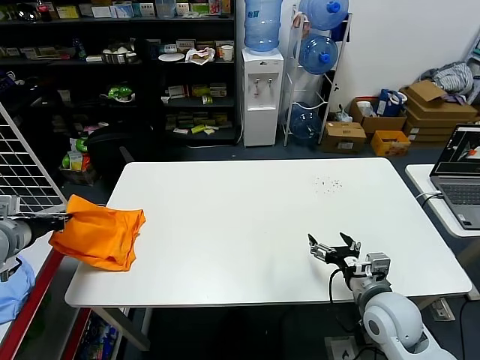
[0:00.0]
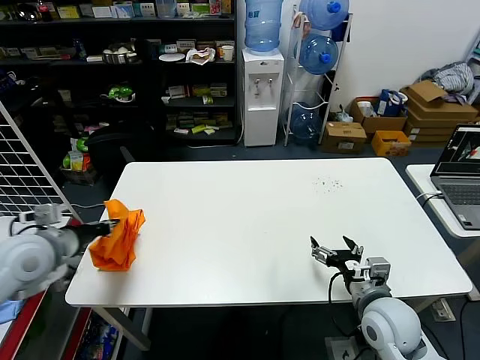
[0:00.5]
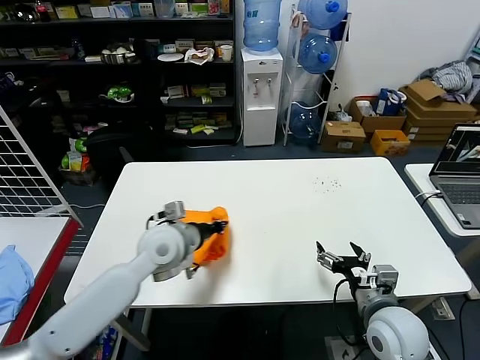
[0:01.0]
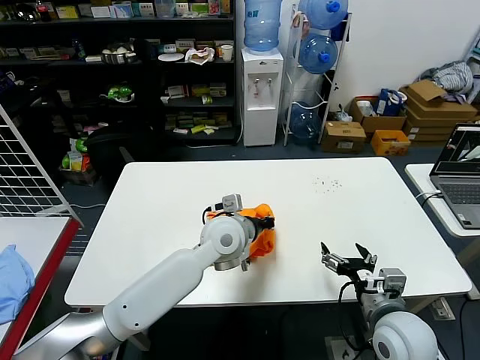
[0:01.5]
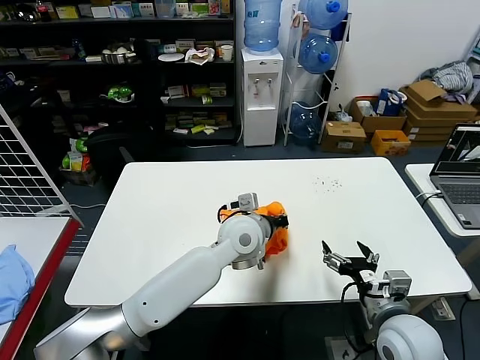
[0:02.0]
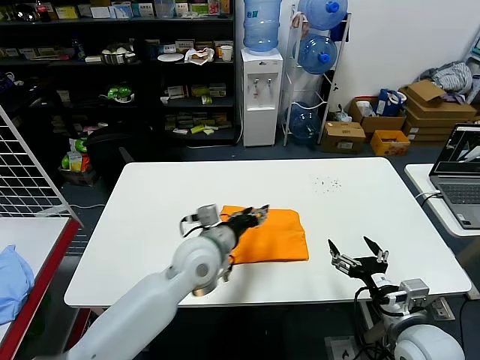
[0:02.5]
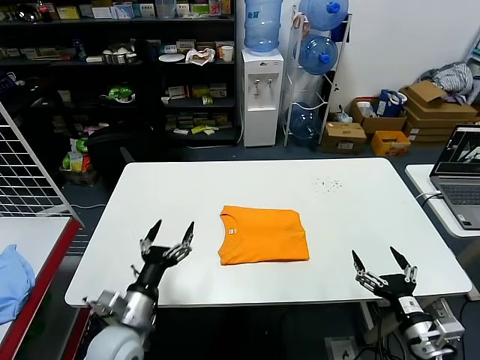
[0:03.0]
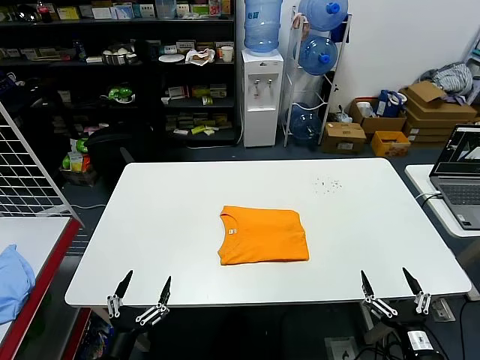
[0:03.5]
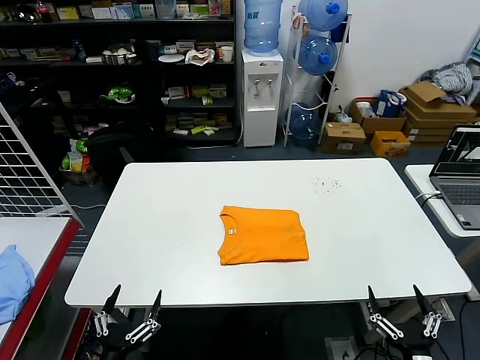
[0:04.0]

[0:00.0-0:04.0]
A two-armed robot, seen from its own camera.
Task of the whole recording: fold and organize the clothes.
Step, 0:00.0 to 0:02.0: Flip the folded clothes over with left gripper.
0:00.0 to 0:02.0: The right gripper changes place by some 5 cm, while the left gripper is displaced to the right by about 50 cm.
0:02.0 to 0:04.0: The right gripper travels backward and downward by approximately 20 cm, while the left gripper is displaced backward and to the left by approximately 40 cm, and opens its fingers.
